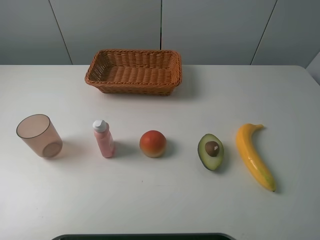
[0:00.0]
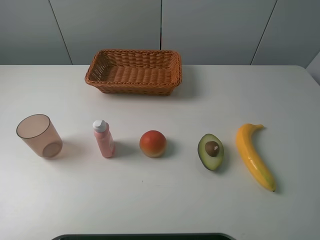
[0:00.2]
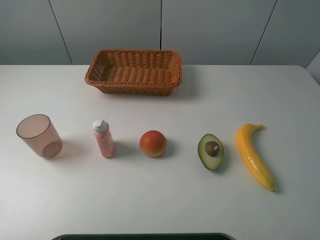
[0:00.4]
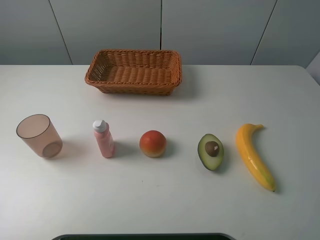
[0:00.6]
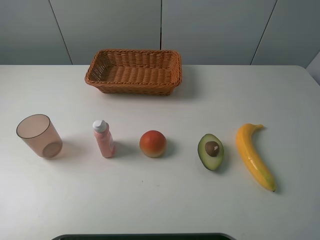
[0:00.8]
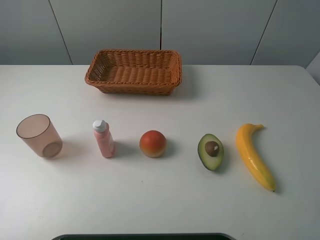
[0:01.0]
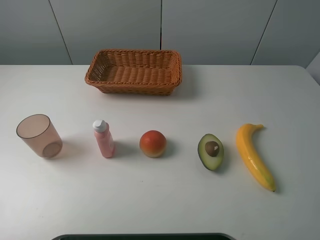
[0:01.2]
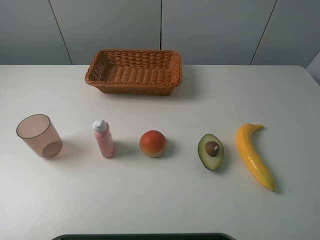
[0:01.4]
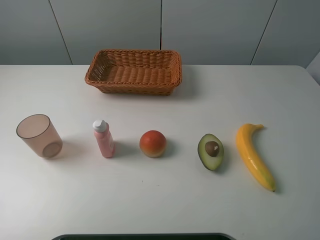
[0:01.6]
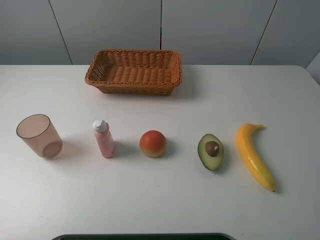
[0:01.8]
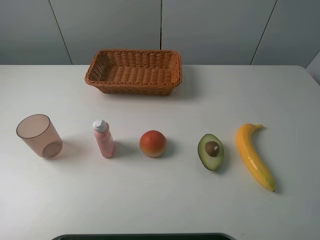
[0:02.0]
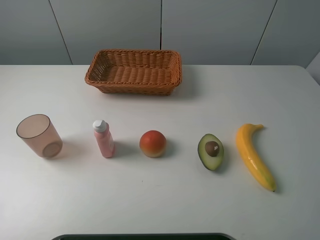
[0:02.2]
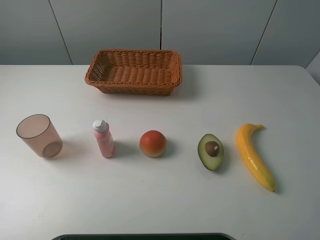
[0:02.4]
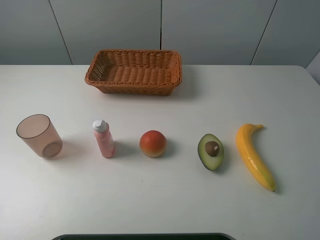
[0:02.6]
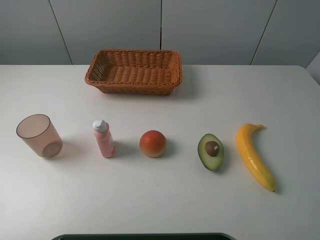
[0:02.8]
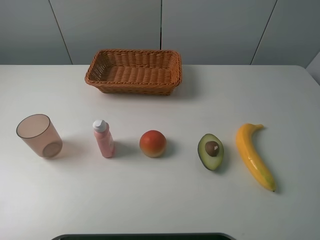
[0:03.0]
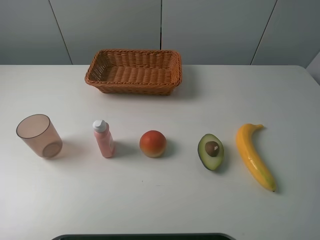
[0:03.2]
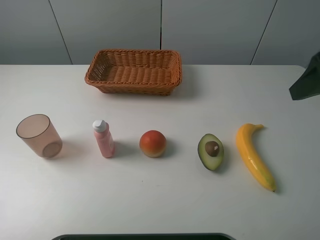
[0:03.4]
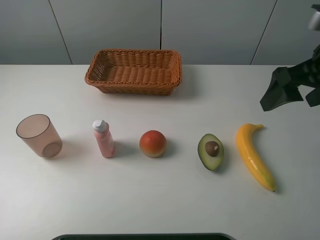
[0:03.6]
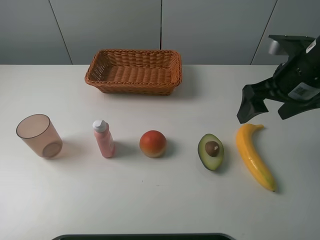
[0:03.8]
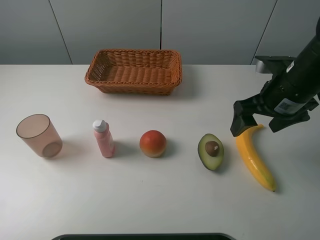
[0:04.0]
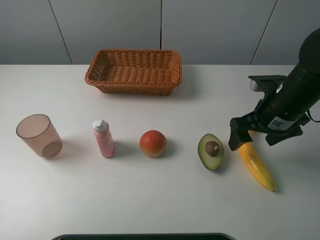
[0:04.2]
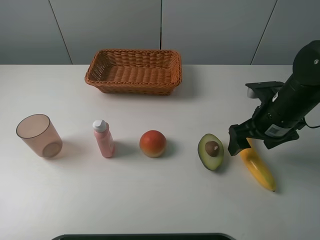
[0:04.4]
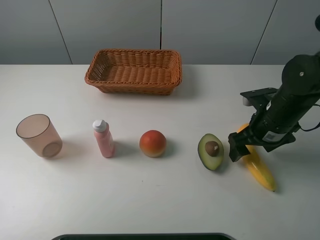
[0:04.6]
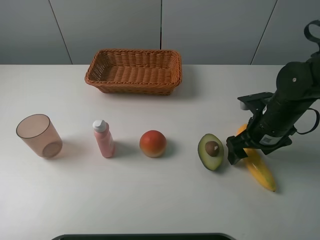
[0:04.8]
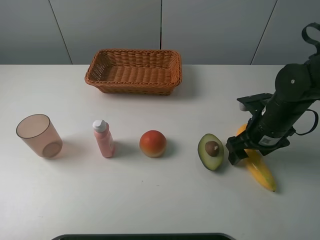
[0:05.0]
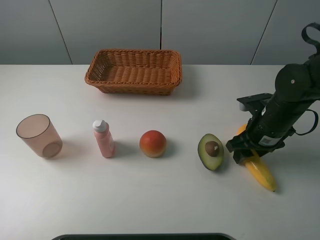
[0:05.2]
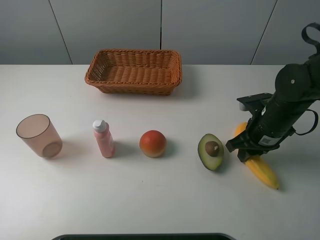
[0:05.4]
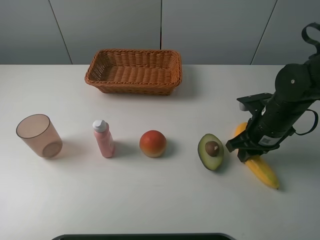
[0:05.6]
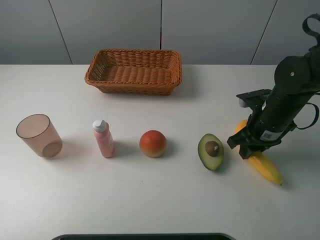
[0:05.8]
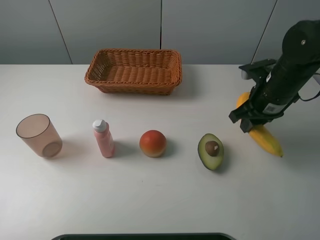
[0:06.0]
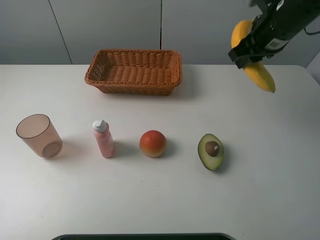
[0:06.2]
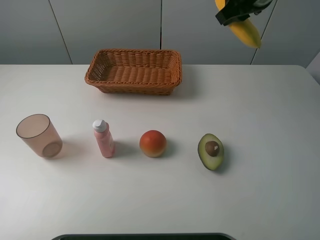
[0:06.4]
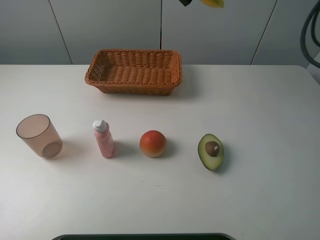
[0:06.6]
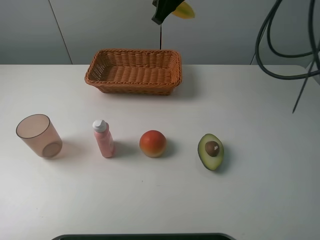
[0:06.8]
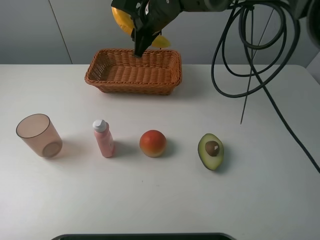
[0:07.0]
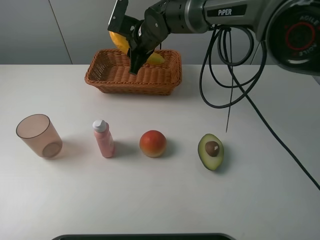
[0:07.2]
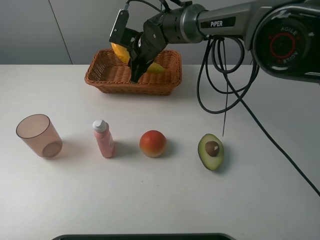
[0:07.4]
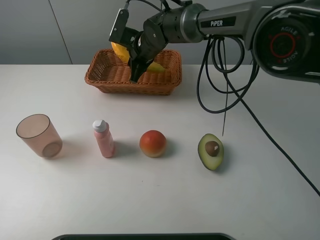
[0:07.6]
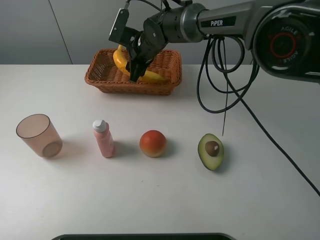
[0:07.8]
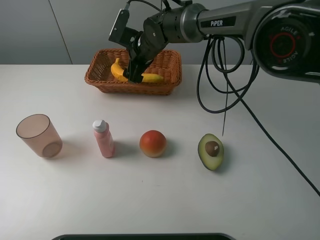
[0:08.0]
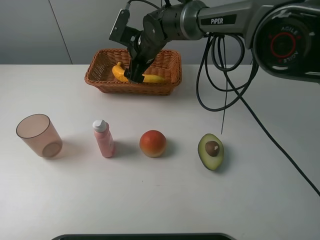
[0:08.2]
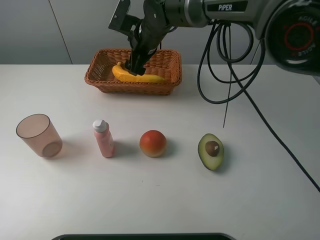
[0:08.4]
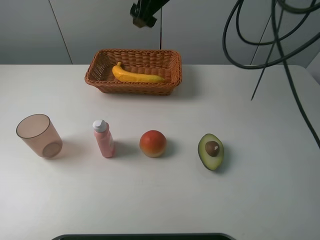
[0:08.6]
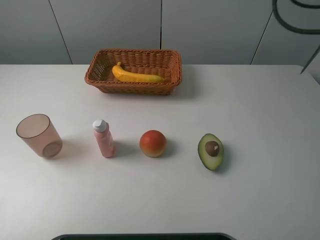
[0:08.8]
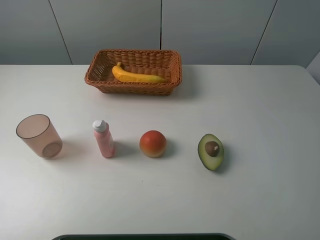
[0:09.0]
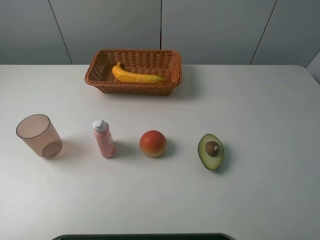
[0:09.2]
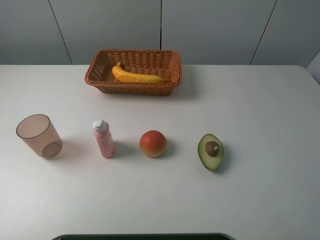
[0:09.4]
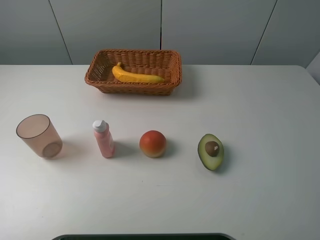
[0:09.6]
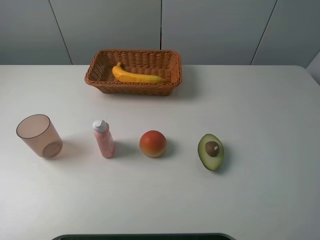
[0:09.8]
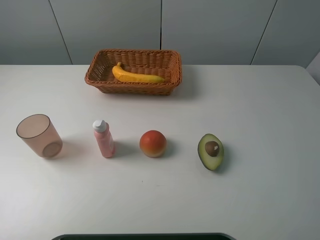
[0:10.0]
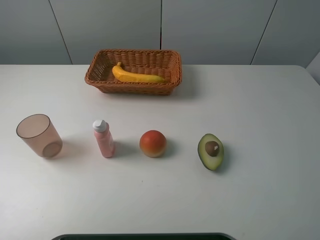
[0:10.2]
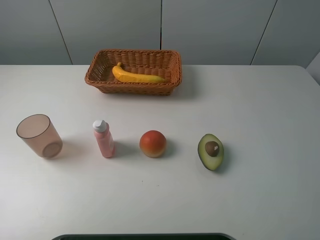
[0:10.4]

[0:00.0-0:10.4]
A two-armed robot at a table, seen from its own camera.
Task of the whole recording: randomly pick up an item from the table and put it in the basket.
Step, 0:00.0 to 0:05.6: Grasp the banana with the right gripper.
Step, 0:05.8 to 0:08.4: Place the banana into the basket with the right gripper.
0:00.0 to 0:01.4: The two grippers keep their place.
0:03.0 to 0:04.4: The right gripper shifts roughly 25 cm downward and forward.
0:04.4 to 0:06.0: The right gripper moves about 5 cm, and closes its fingers.
0:06.0 to 0:07.4: The right gripper goes about 30 cm to the left and forward.
0:07.4 to 0:09.0: The right gripper travels upward and to the right by some 40 cm, and opens up.

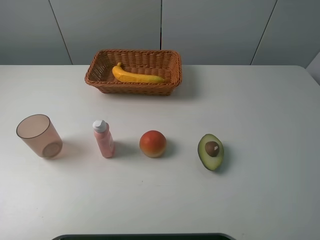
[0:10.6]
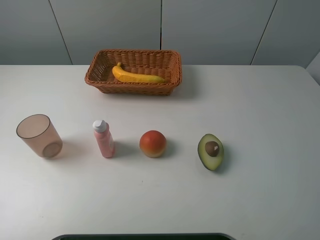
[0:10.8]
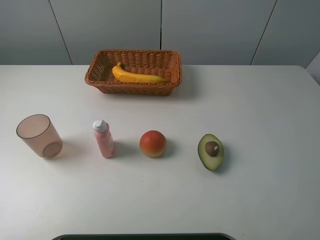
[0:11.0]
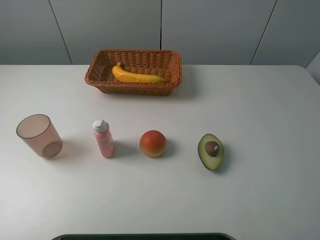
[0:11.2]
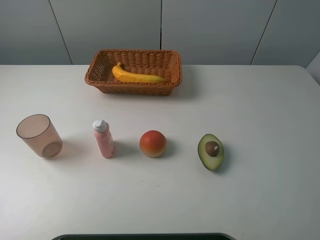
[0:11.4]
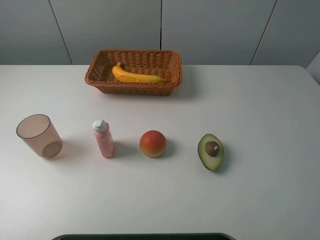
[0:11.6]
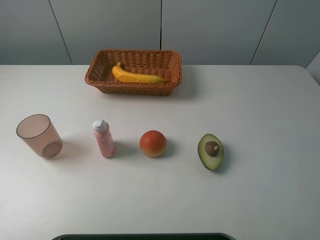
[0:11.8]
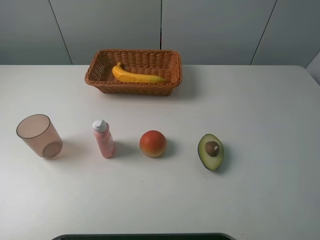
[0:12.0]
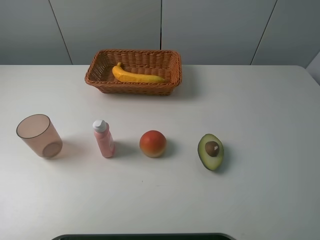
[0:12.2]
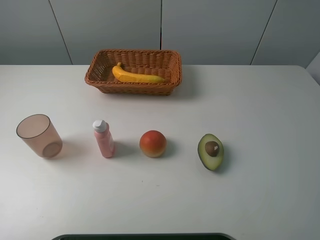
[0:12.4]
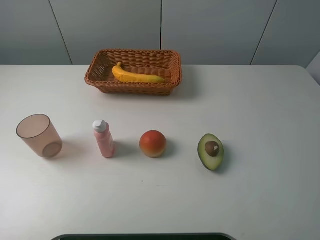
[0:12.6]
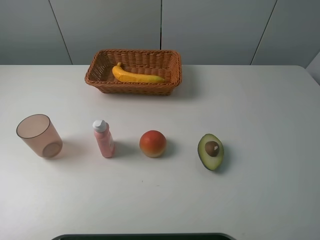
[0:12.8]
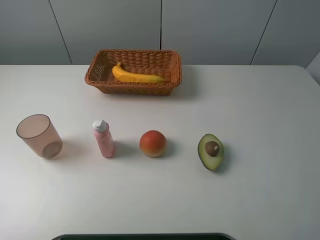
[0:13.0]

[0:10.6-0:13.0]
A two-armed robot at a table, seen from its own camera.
Task of the whole recording: randomly pick up an item from the table and put it in the basket.
0:11.8 to 0:13.0: Both grippers stay put.

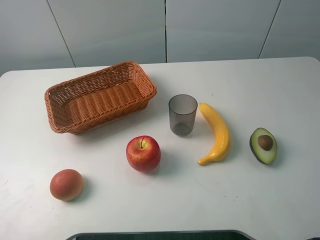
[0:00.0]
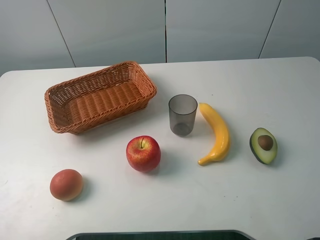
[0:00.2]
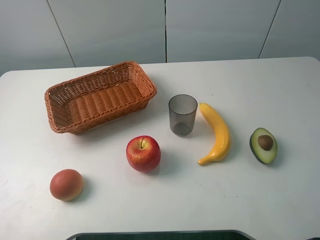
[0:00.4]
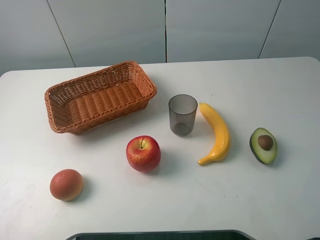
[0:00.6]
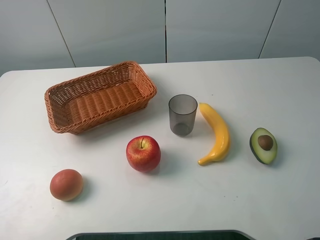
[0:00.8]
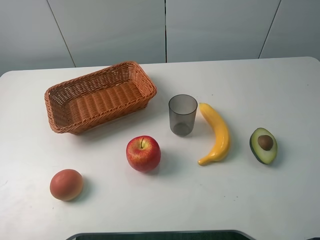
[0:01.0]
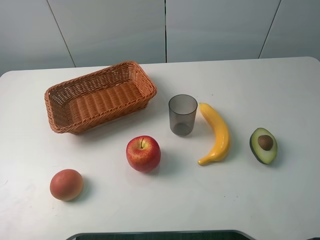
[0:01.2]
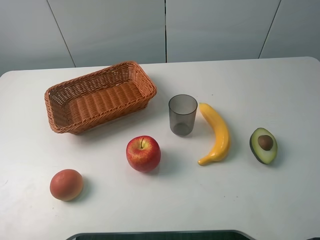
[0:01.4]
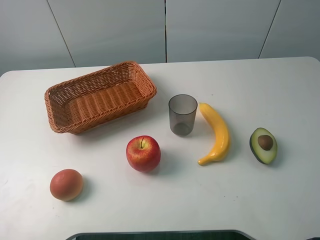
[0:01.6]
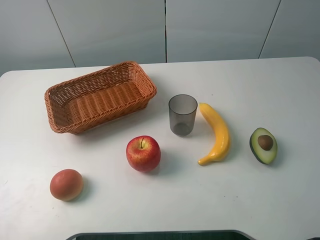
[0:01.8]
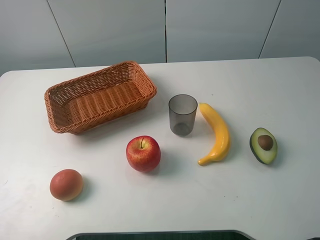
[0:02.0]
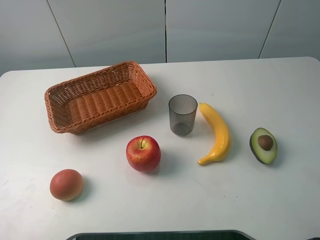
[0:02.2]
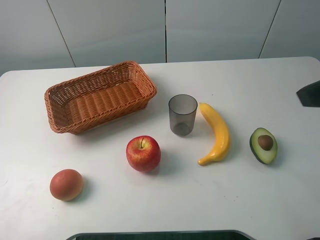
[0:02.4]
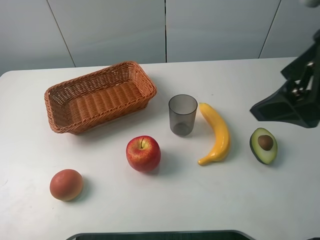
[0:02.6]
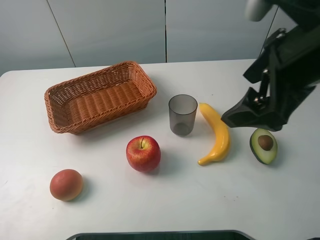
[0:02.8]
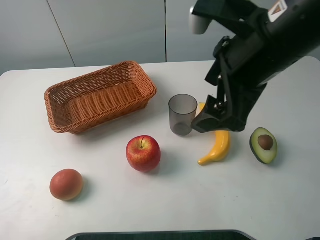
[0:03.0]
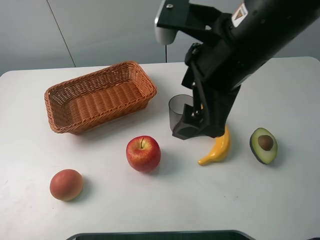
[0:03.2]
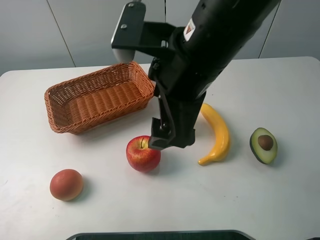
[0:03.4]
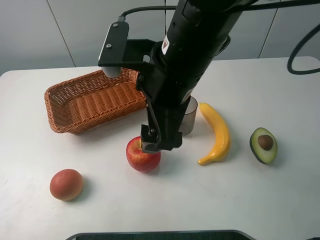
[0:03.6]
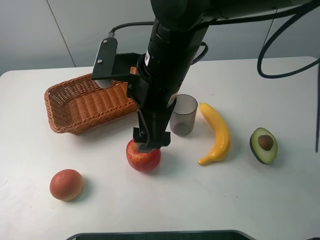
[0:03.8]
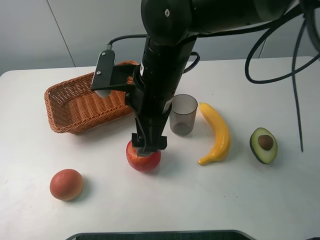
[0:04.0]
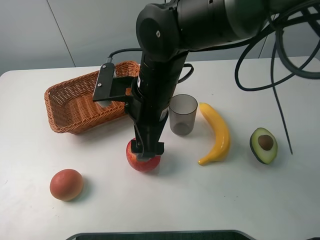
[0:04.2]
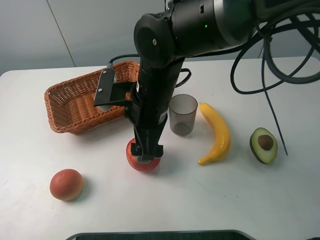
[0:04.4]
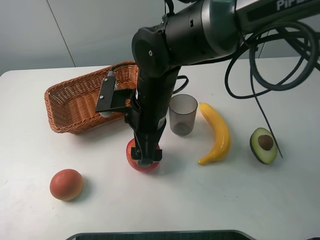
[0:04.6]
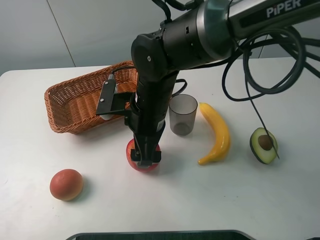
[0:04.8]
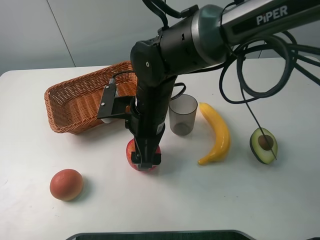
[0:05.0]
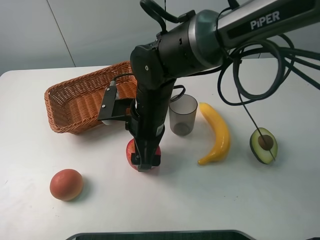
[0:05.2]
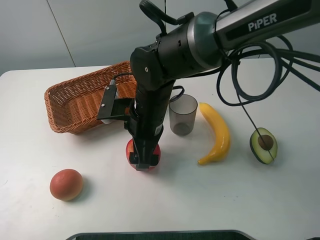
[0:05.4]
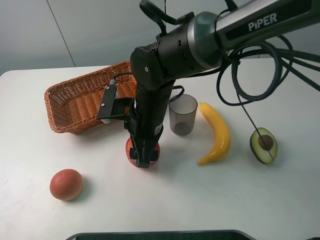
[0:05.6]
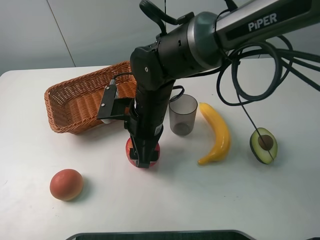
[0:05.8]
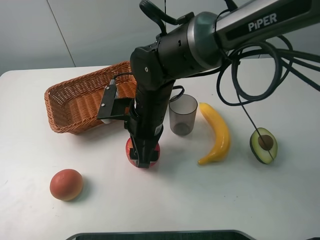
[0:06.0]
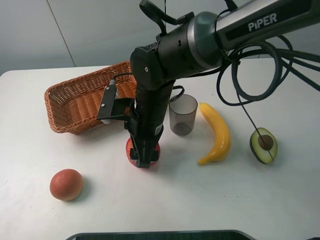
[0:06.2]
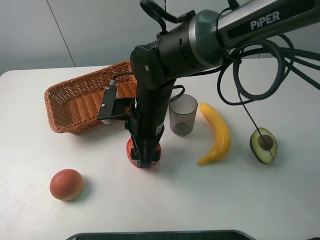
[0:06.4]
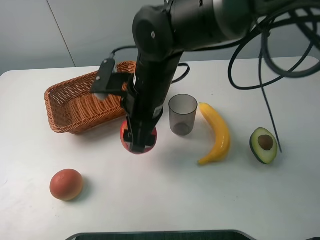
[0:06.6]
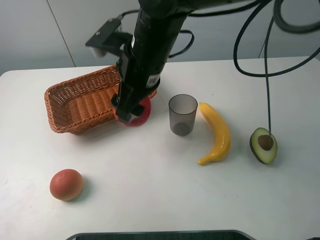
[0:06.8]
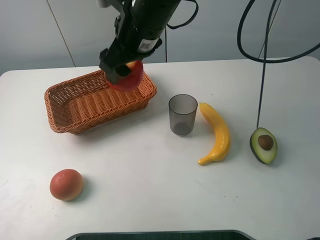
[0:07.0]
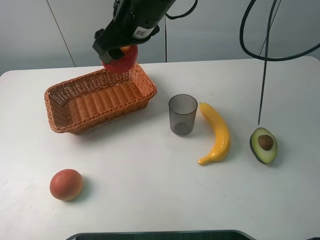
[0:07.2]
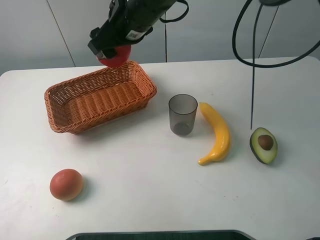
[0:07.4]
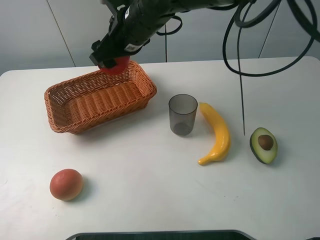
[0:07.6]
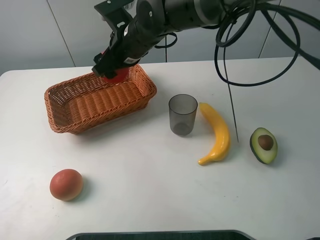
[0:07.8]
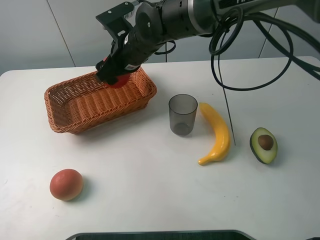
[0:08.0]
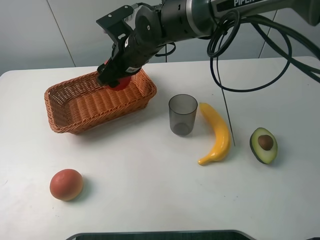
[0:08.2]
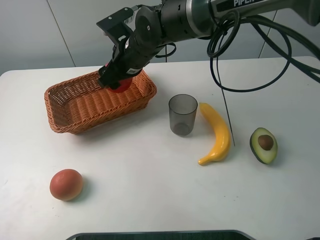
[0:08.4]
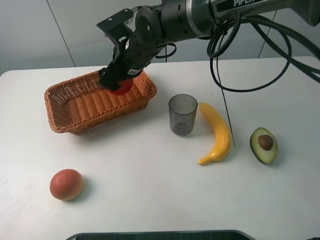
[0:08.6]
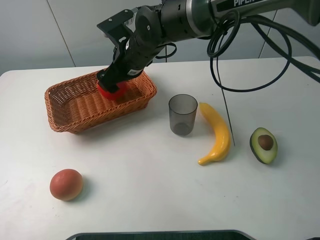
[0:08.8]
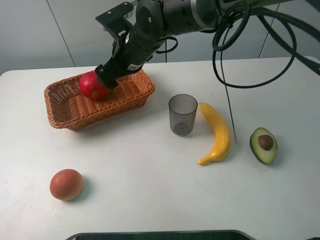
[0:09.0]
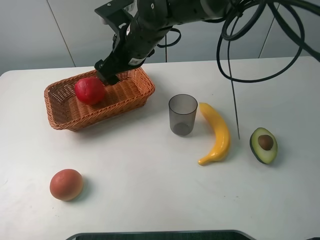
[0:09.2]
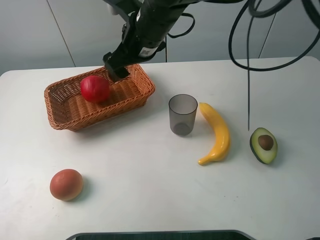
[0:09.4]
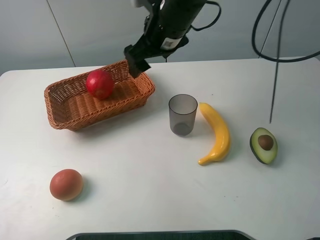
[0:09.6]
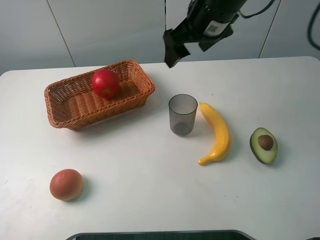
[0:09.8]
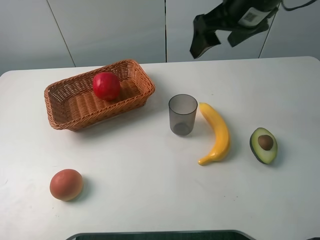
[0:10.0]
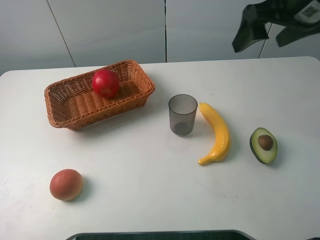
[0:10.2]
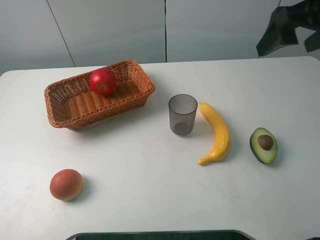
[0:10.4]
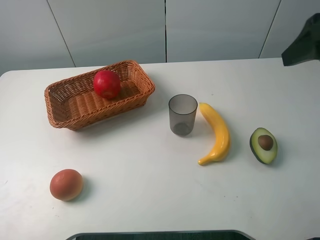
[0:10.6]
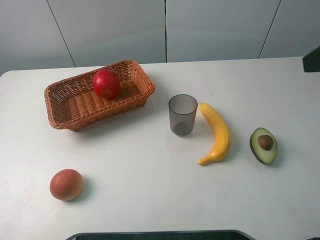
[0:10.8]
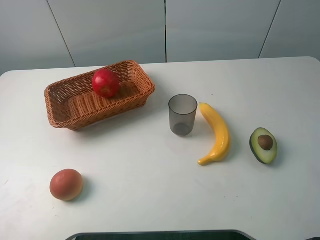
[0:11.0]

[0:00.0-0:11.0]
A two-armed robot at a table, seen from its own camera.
Task of the whole recording: randomly pick up an item from the table and put it in the basket.
Step, 0:00.0 to 0:06.0: Grasp the apple with the right gripper.
Step, 0:06.2 to 0:09.2: Place the apple into the basket with the right gripper.
0:01.6 to 0:03.2: The right gripper is displaced to the left and forward by approximately 30 cm.
0:03.2 to 0:04.8: The right gripper goes some 15 cm downward and to the left.
0:04.8 to 0:06.2: The right gripper closes its fingers.
0:06.2 to 0:07.8: The right gripper shifts about 15 cm forward and upward.
0:07.8 to 0:09.4: The right gripper ends up roughly 5 cm from where it was, and opens its fingers.
0:09.4 to 0:11.0: The right gripper travels to the right and backward by some 40 cm.
